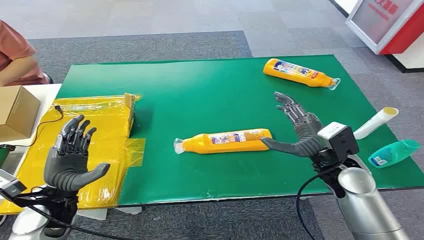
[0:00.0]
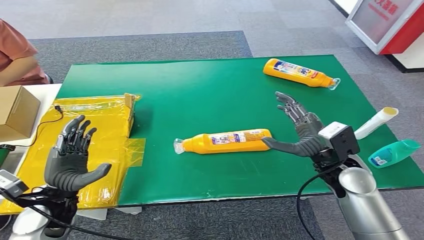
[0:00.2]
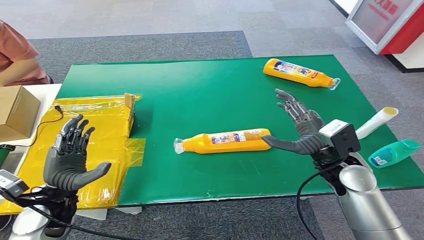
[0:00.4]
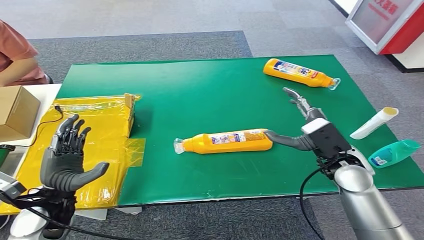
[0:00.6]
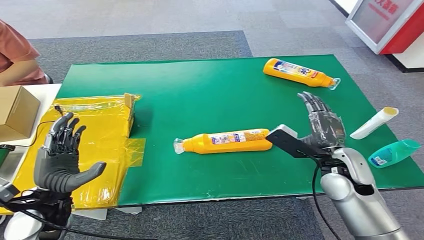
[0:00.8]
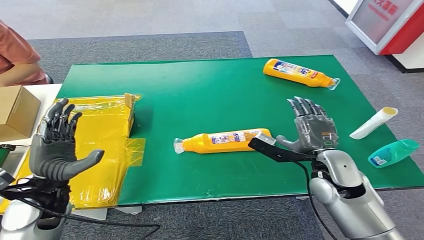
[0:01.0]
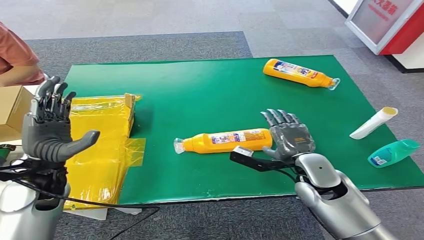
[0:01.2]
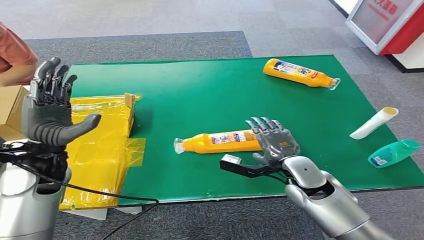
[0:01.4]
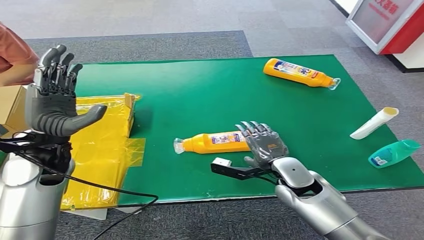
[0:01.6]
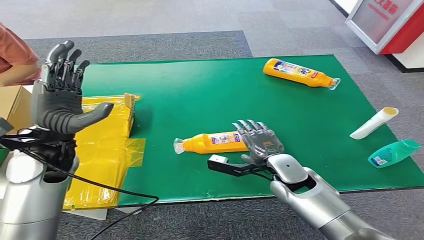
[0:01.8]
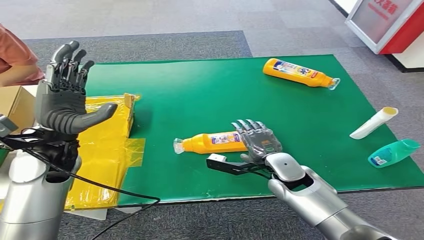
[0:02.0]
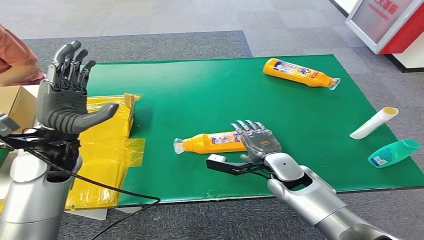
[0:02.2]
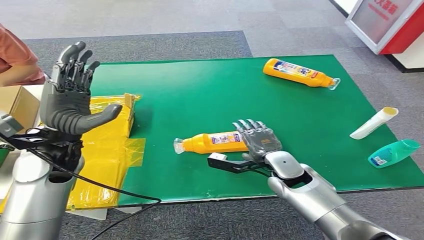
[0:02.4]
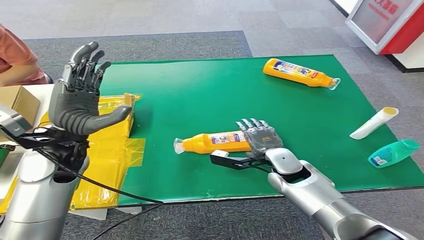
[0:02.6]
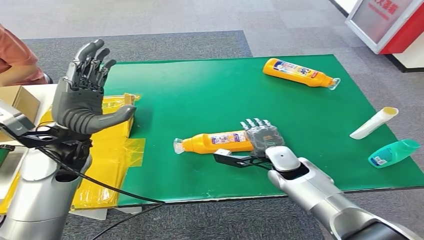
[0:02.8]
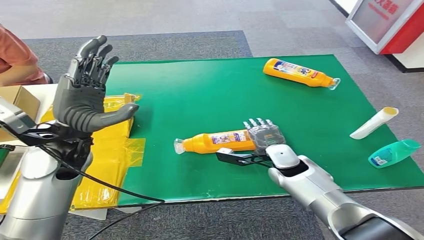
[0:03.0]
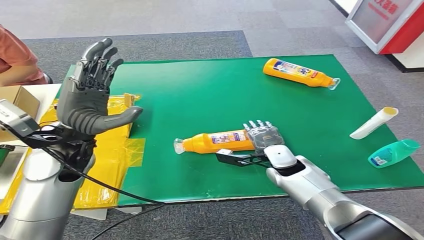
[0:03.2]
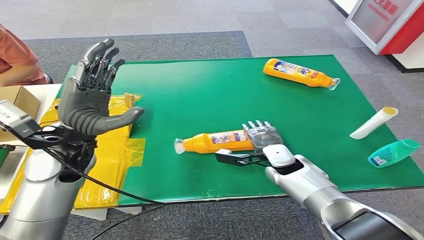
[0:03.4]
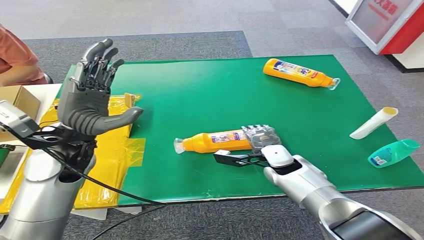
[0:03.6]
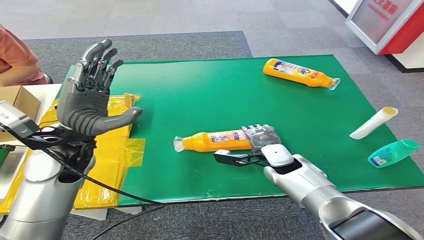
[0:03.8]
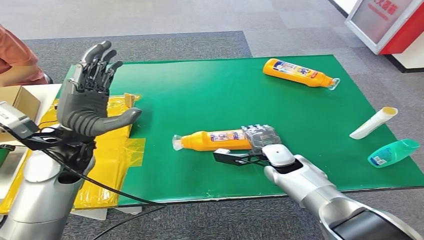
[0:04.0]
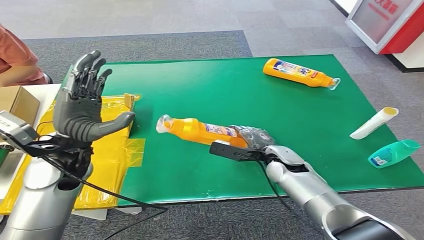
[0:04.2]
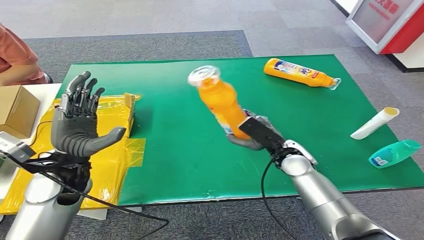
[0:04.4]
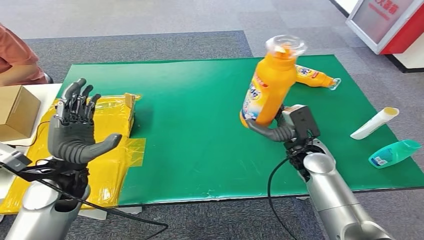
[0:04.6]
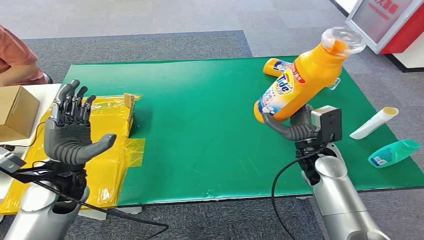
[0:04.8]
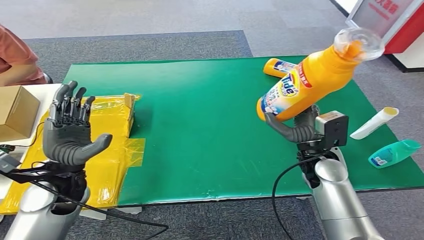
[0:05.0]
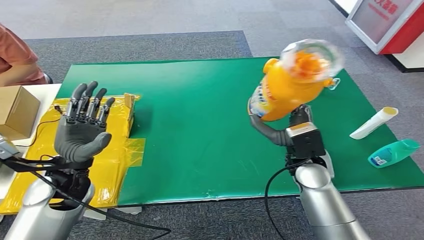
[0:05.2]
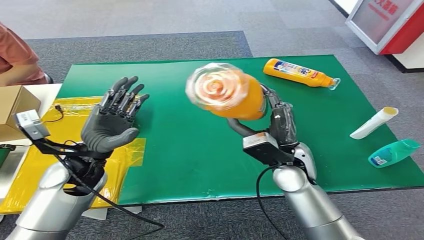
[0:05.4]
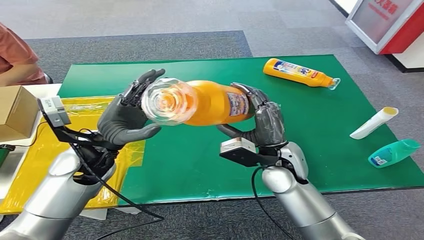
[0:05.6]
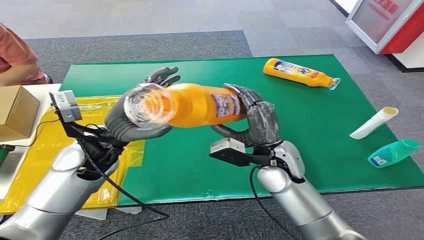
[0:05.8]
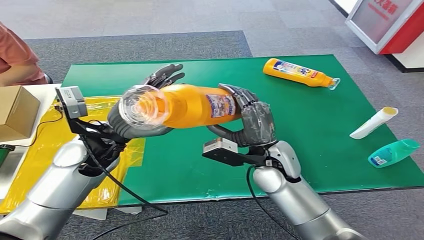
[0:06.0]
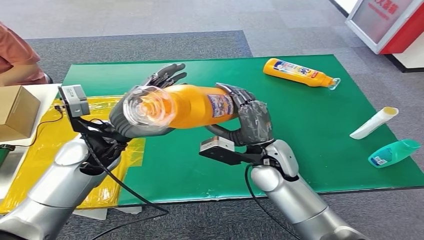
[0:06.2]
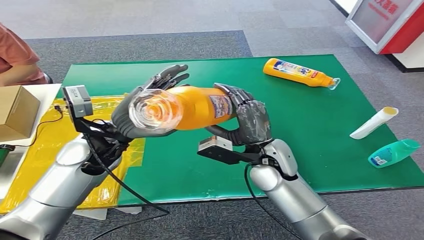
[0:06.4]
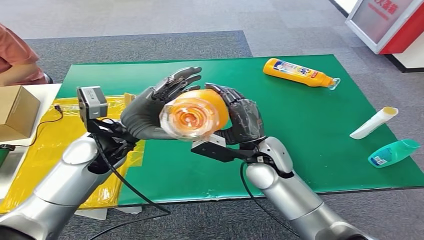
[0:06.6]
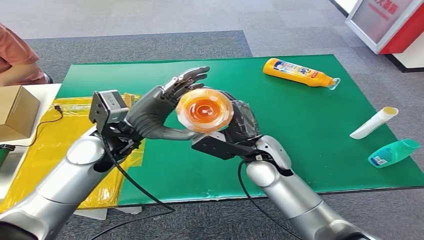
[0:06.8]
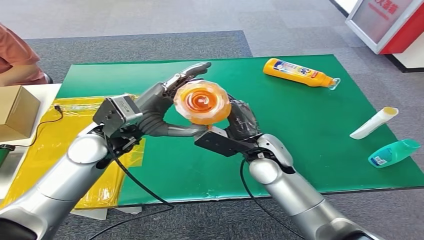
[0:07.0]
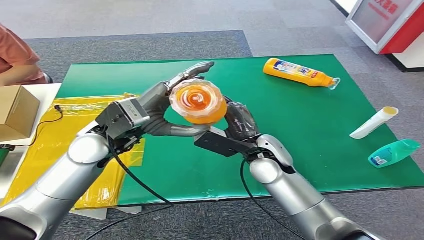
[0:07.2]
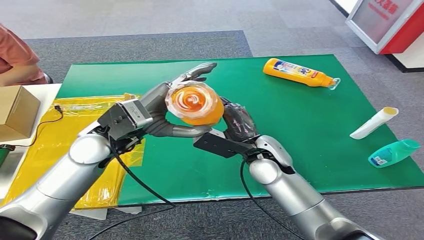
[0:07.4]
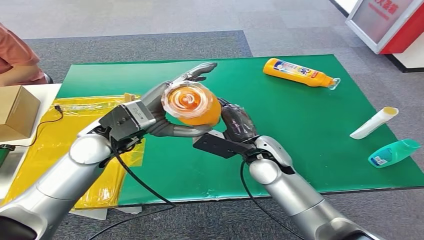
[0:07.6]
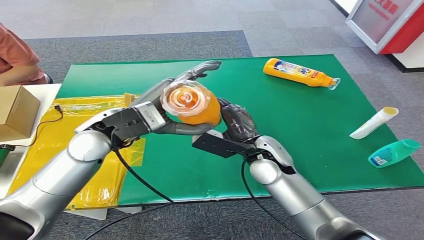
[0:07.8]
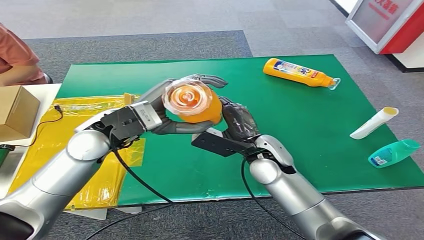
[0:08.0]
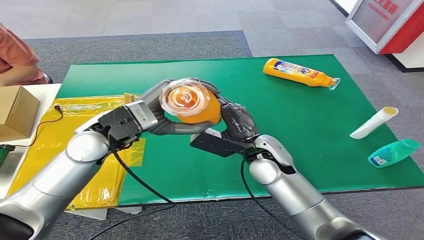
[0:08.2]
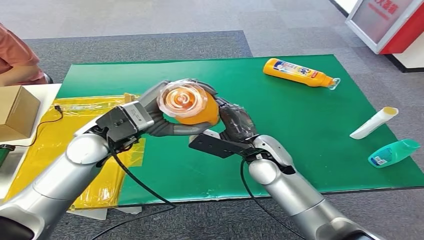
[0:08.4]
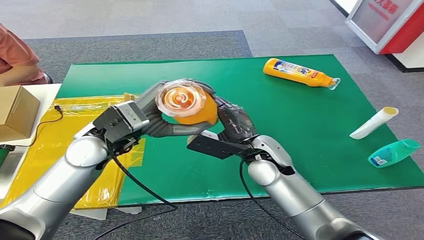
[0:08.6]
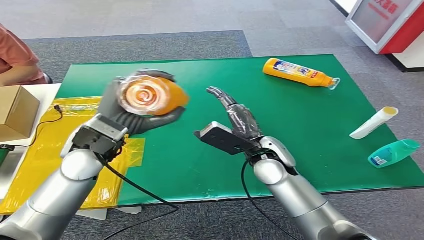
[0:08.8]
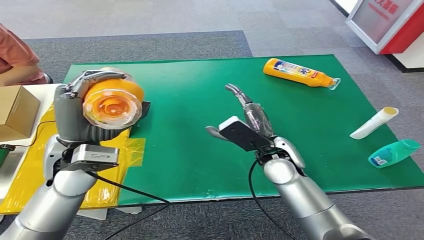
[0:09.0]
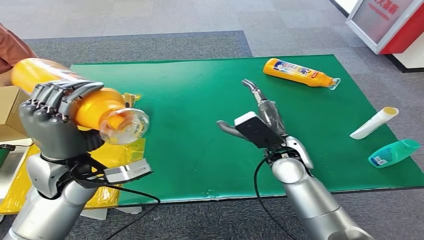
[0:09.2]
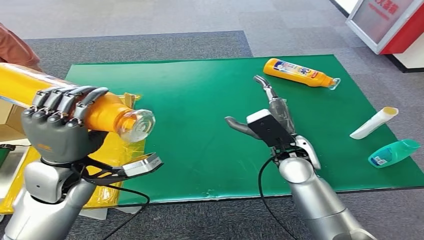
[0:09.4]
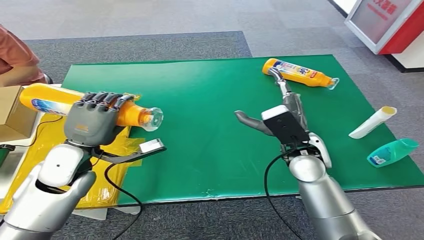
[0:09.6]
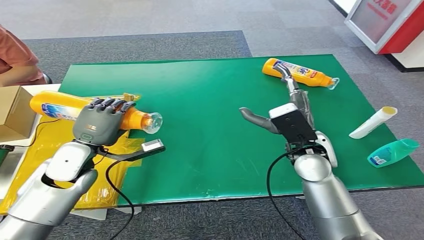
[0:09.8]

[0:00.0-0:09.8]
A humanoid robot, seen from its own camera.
Step, 0:00.0 to 0:04.6: Pick up the bottle from the table.
0:05.6 to 0:07.0: The left hand moves about 5 cm.
0:07.0 to 0:08.4: The hands make only small movements.

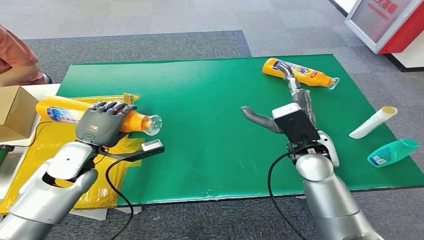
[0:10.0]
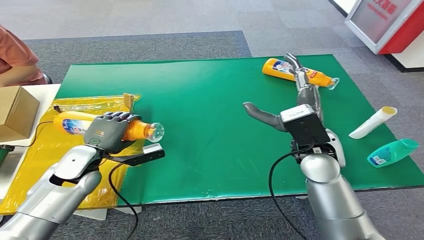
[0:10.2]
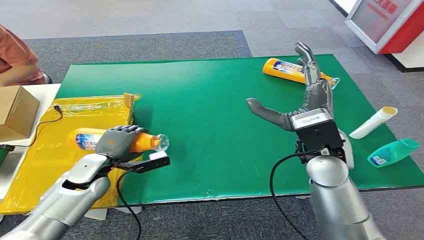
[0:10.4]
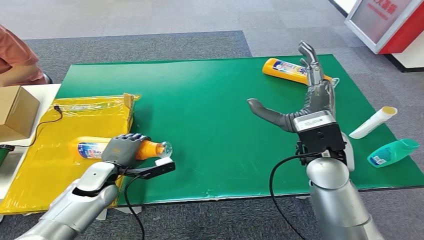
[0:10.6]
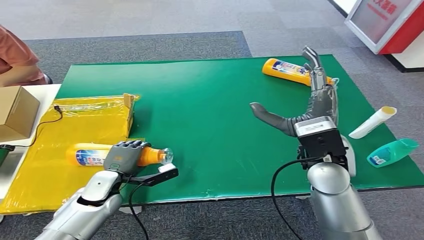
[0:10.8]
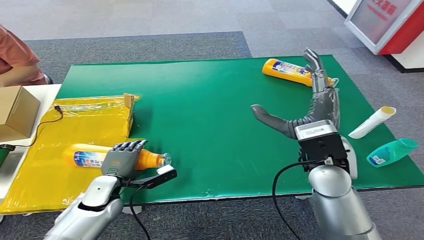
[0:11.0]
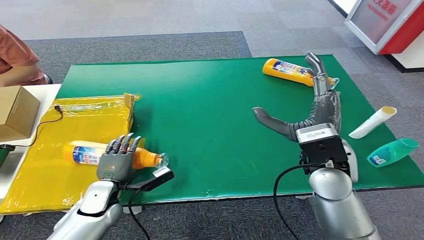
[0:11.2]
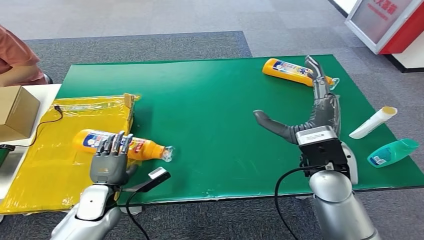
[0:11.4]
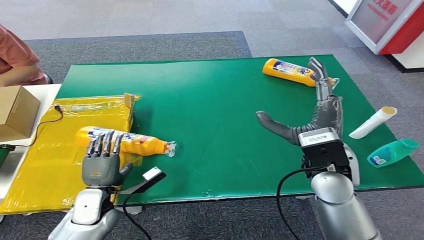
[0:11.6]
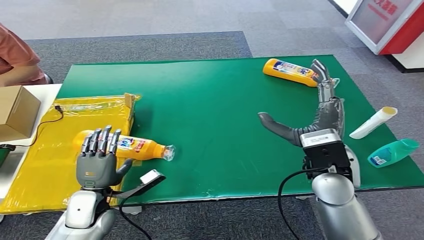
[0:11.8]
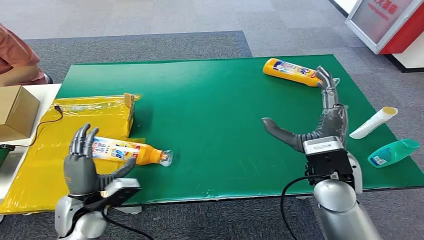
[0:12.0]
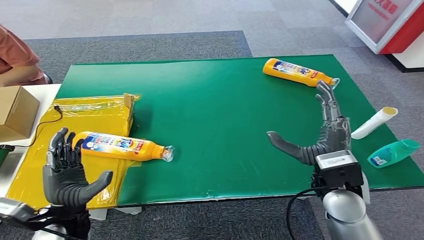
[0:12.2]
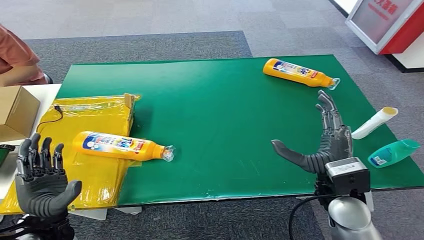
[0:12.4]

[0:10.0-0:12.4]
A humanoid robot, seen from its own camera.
Step, 0:10.0 to 0:12.4: Turn the bottle to the front side.
0:11.2 to 0:12.4: The right hand is displaced downward and backward by about 10 cm; the left hand goes about 15 cm backward and upward.
